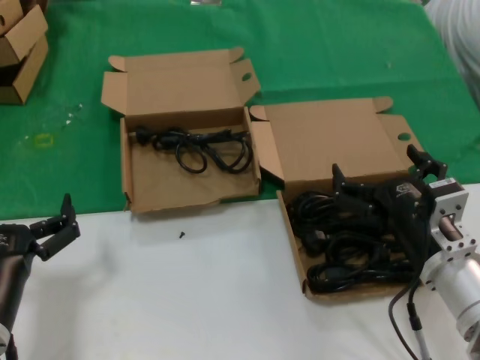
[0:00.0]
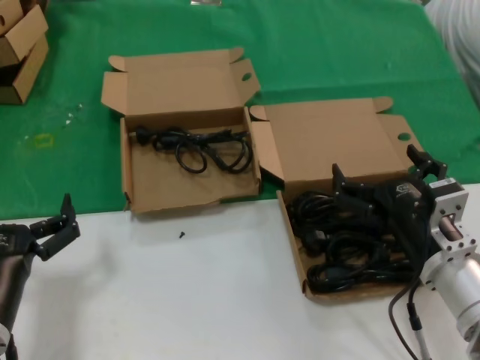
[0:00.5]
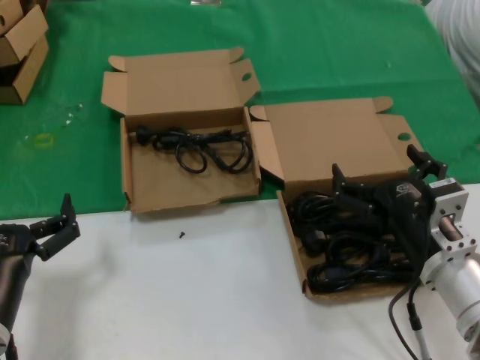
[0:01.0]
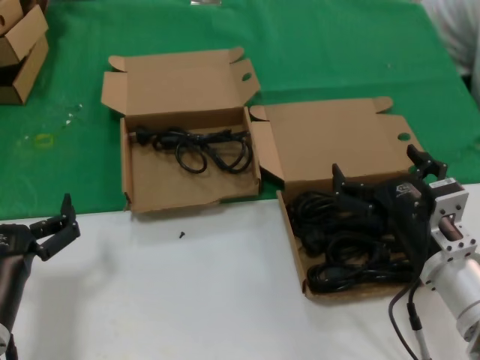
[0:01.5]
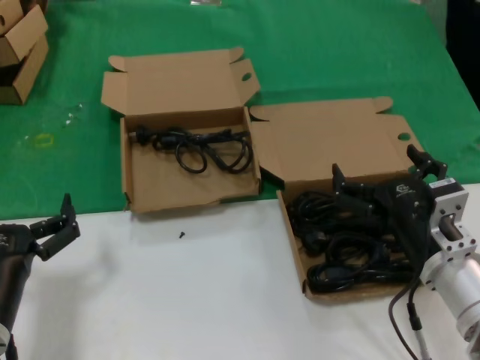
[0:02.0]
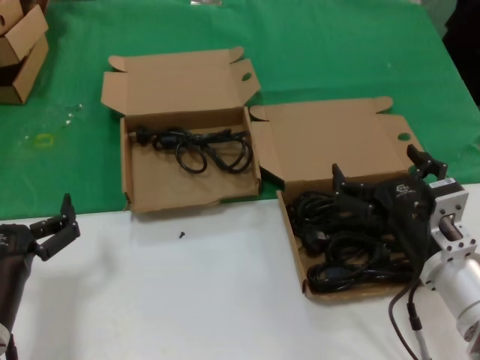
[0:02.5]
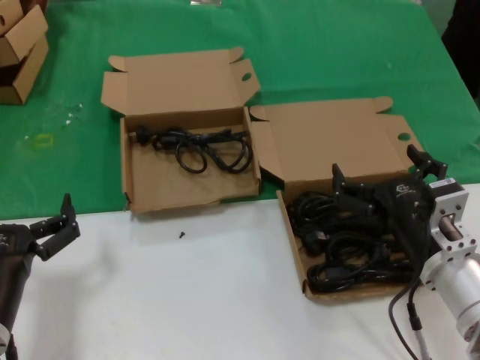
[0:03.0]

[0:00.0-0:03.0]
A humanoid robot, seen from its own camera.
Task of the whole recording: take the parts from the box containing them and put them into an empty box.
0:00.0 to 0:03.0: Neither hand changes place.
